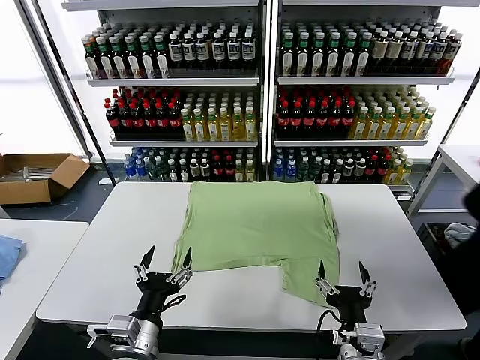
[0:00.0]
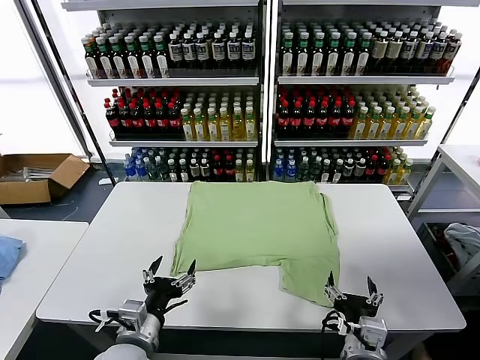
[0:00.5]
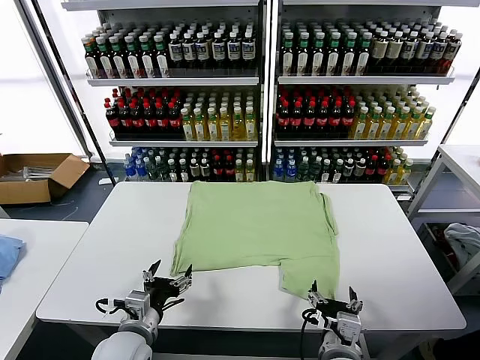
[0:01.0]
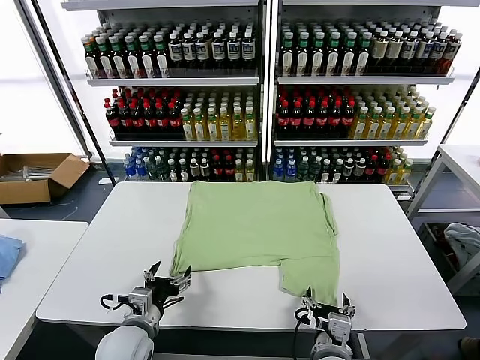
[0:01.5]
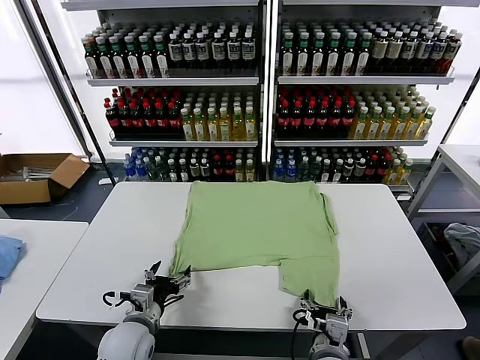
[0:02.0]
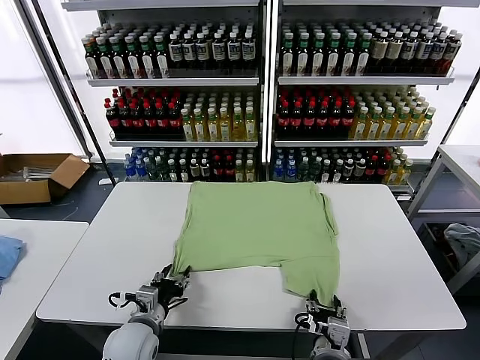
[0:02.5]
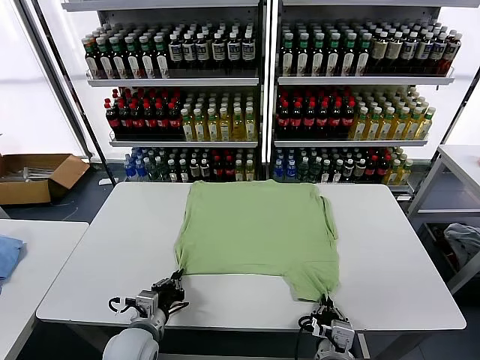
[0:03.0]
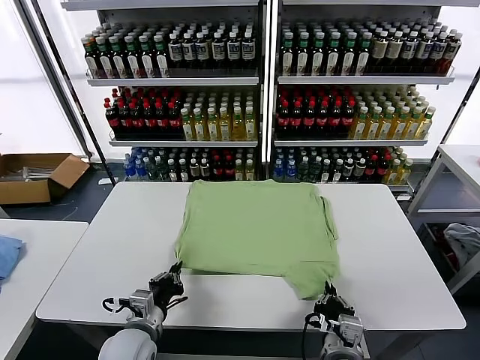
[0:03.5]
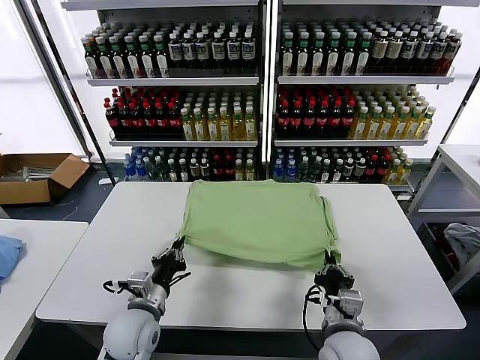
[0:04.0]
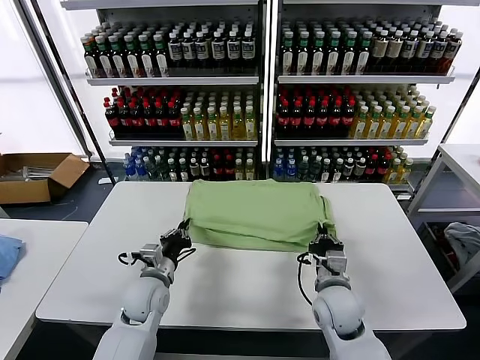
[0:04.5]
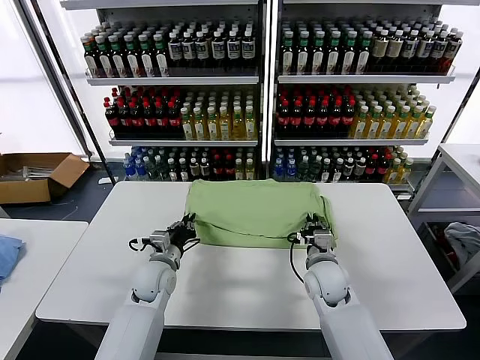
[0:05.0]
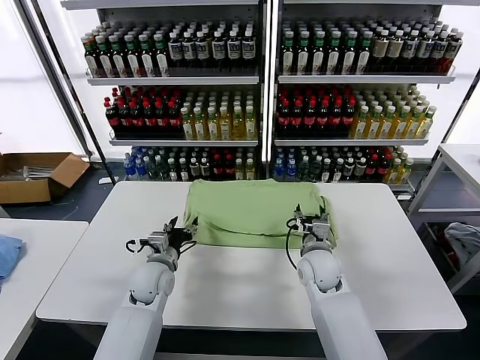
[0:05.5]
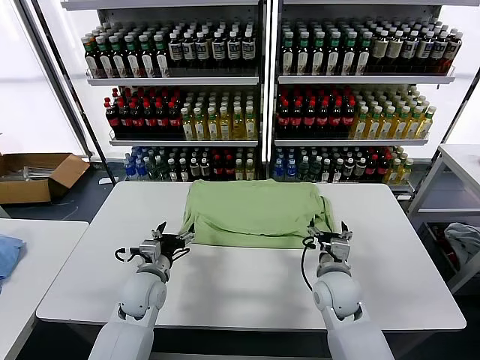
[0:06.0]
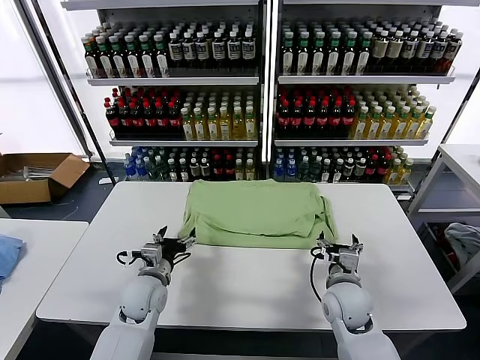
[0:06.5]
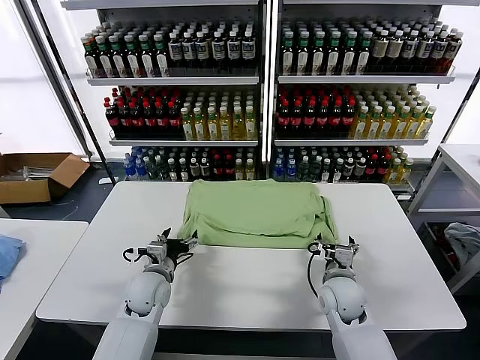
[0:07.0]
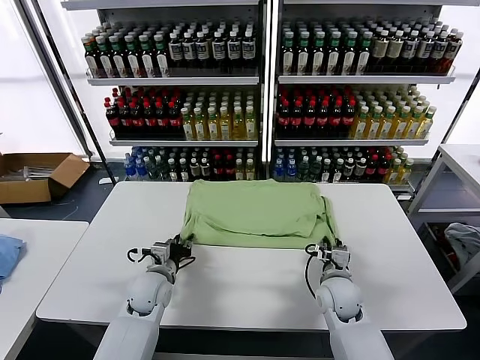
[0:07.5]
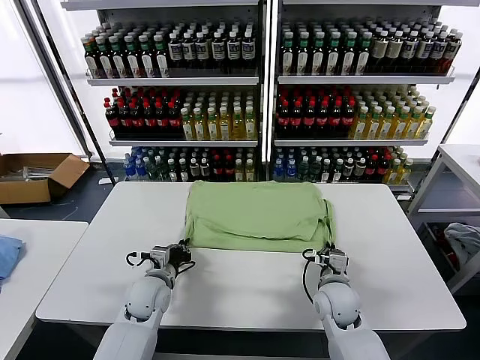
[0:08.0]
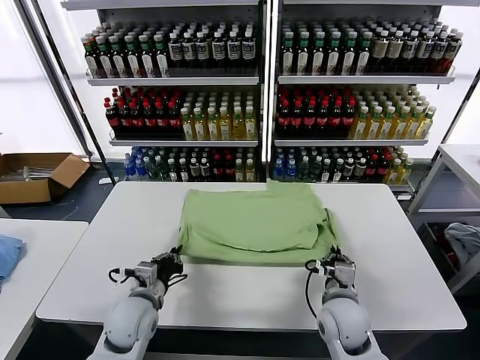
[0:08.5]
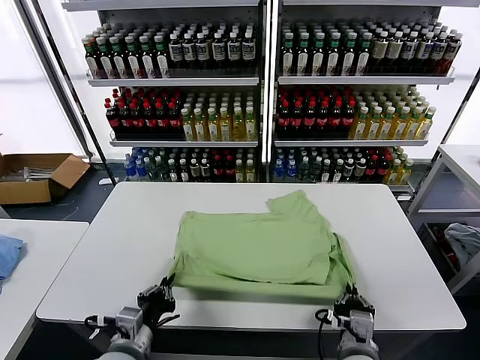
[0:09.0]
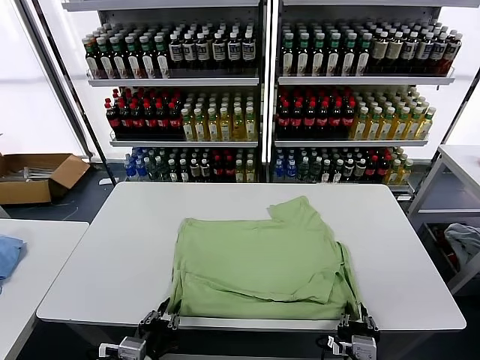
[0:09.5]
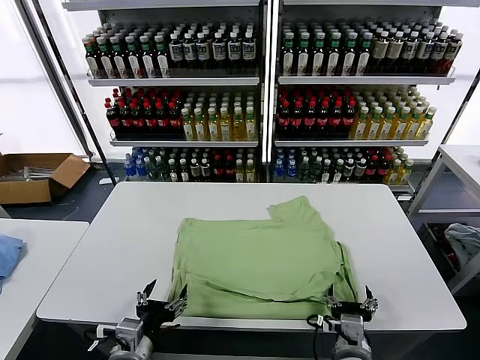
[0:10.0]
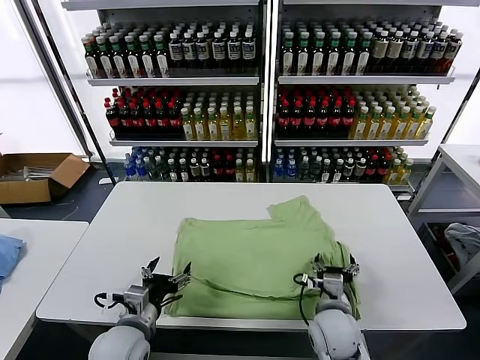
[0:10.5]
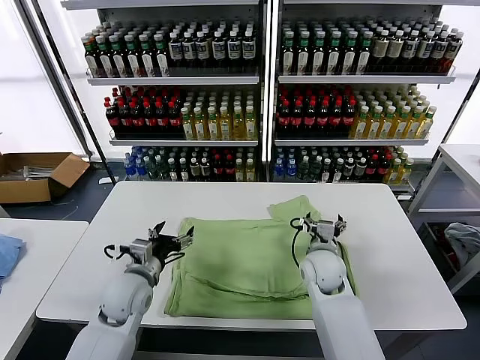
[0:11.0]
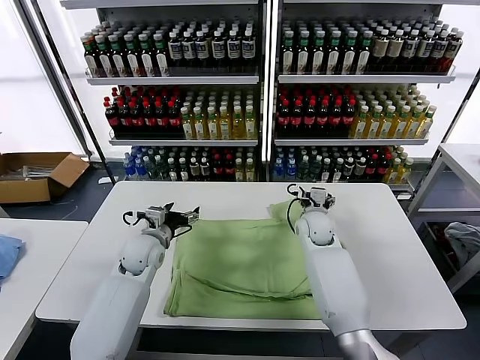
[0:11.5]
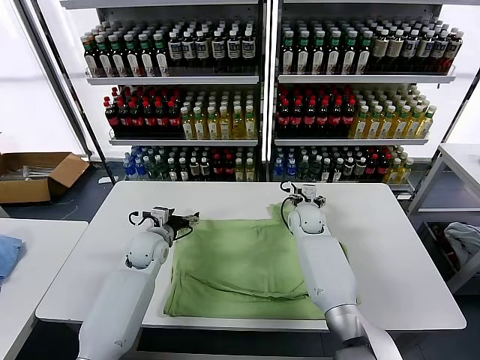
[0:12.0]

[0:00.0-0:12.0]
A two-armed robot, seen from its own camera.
Task of the whole recording: fold and organize the clothes.
Step, 0:00.0 to 0:03.0: use both grippers simultaneously to clamp the lower edge of the clothing fabric.
Step, 0:03.5 to 0:05.5: use both grippers to drag the lower edge of the fabric forward and fold it over the upper edge.
Step, 0:06.0 to 0:09.5: Drag the clothes downward with both gripper.
0:02.0 to 0:04.0: The left gripper closes its fingers, while the right gripper shifts some 5 cm forward, and closes.
0:04.0 to 0:06.0: Both grippers travel together forward, roughly 10 cm. The right gripper opens its fingers. The left gripper opens.
0:06.0 to 0:08.0: The left gripper closes up, while the right gripper closes up.
0:08.0 to 0:10.0: The grippers both shift backward by some 15 cm. The left gripper opens up. Meanwhile the right gripper opens.
0:10.0 to 0:12.0: The two grippers go some 30 cm forward.

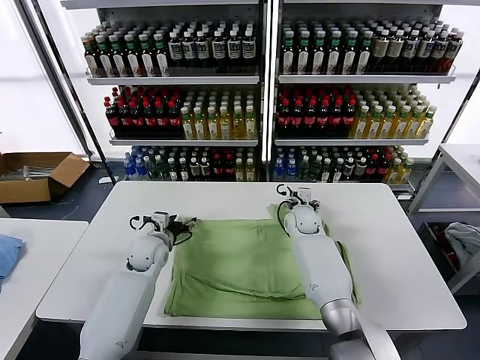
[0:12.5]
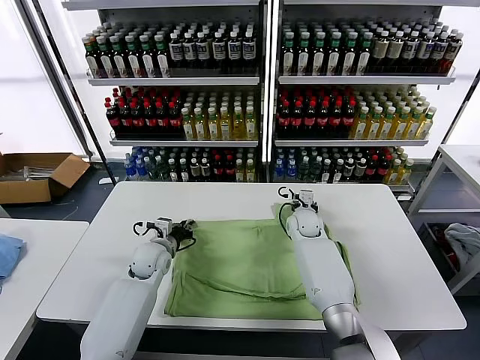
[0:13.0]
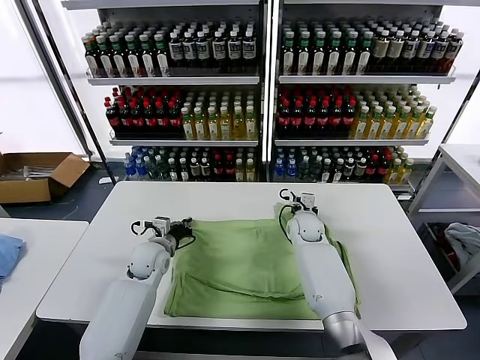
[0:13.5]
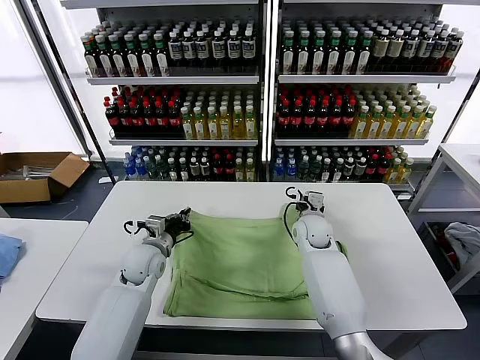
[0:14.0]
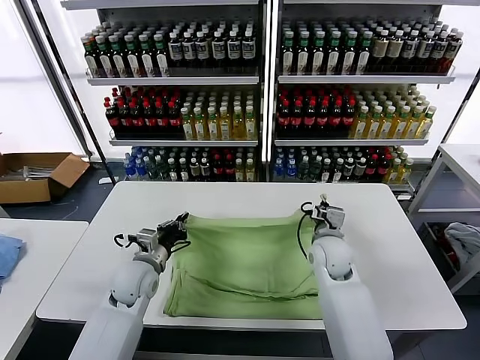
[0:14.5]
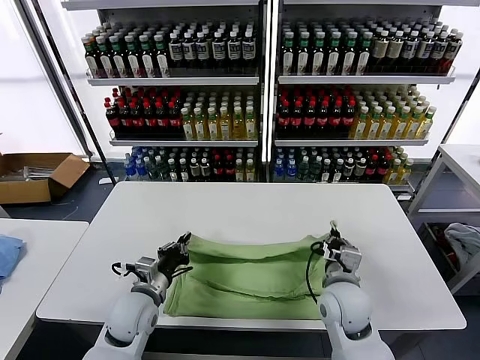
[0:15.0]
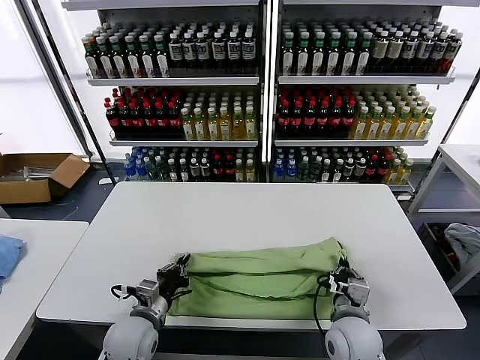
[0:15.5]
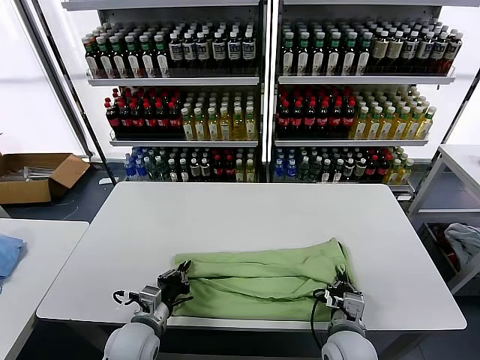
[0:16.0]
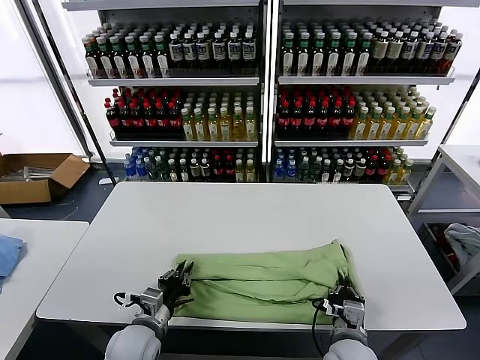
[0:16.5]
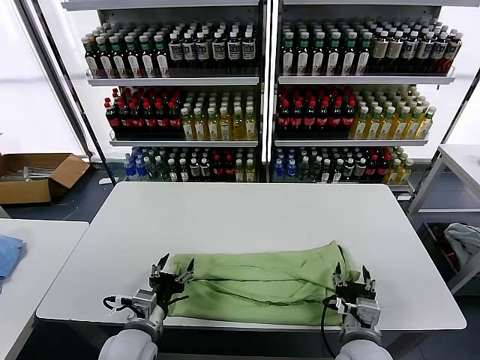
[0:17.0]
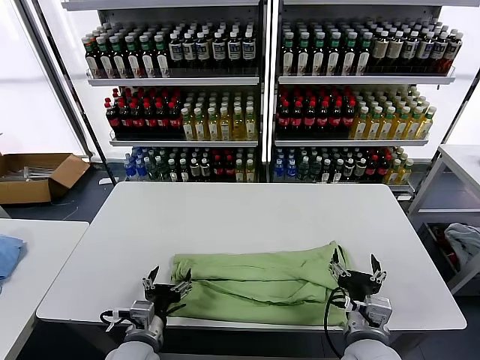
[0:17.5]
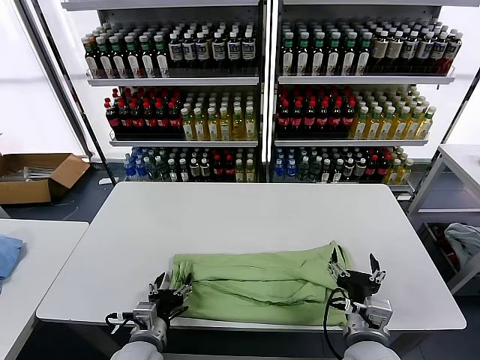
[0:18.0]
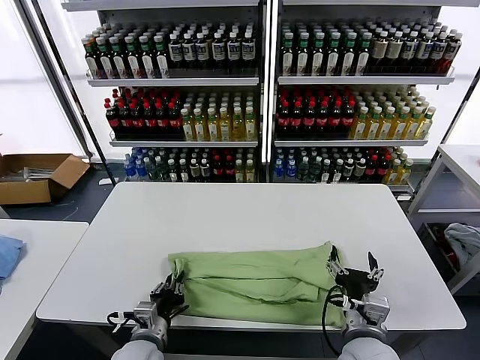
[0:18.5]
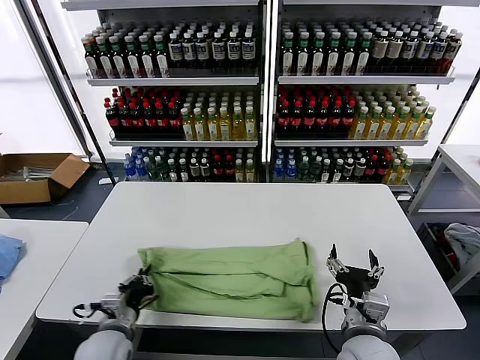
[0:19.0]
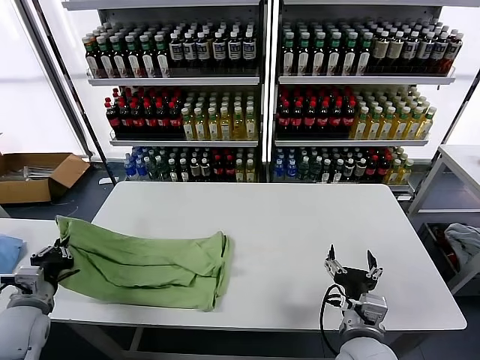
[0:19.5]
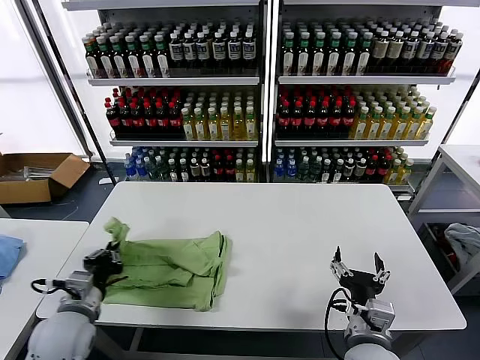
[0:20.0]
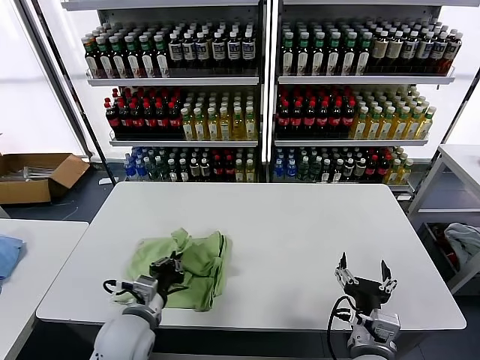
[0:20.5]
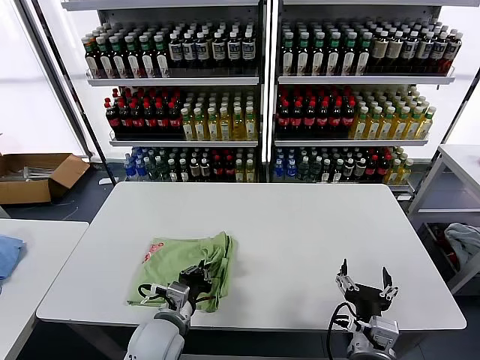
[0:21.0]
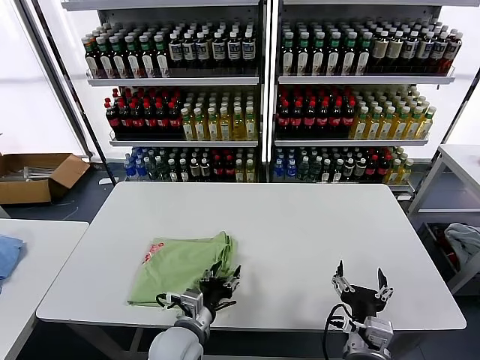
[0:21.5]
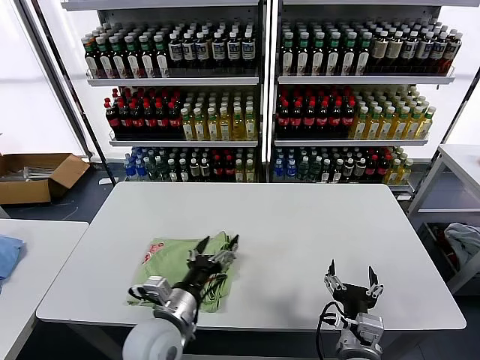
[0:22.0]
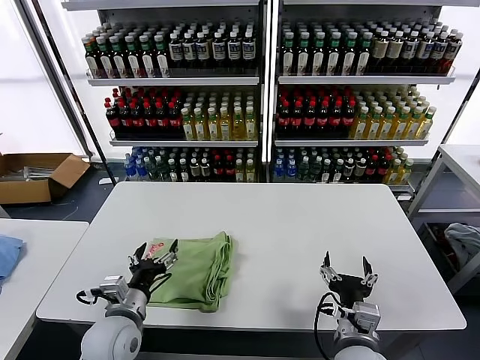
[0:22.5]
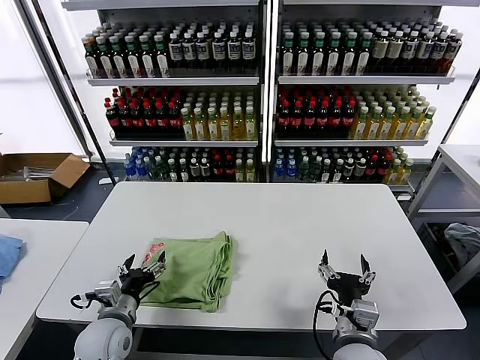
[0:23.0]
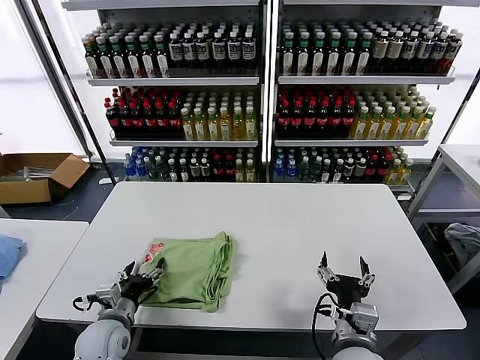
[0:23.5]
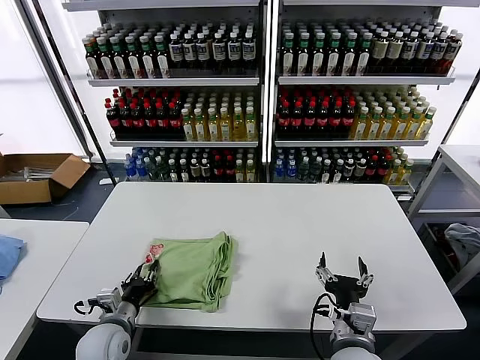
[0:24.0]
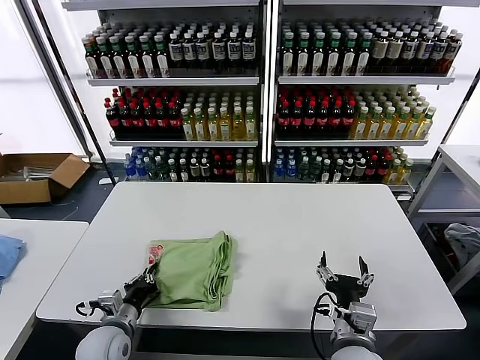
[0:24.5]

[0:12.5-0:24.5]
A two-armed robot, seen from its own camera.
Task of the whole recording: fold and organize the clothes.
Step, 0:13.5 to 0:17.0: use both grippers to drag the upper edge of the fabric backward and fold it over the lower edge.
Step, 0:17.5 to 0:18.5: use the left gripper to clamp the left edge of the fabric.
Step, 0:19.0 to 0:21.5: use the left gripper to drag the left edge of the fabric to the left and folds it over the right edge.
0:12.5 to 0:14.5: The right gripper goes some 15 cm backward, and closes. The left gripper travels backward by some 10 cm, and closes up.
0:14.5 to 0:16.5: The right gripper moves backward and downward, some 20 cm; the left gripper moves backward, approximately 10 cm.
0:16.5 to 0:18.5: The right gripper is displaced upward by some 10 cm, and opens, while the left gripper opens, then closes again.
0:18.5 to 0:20.5: The left gripper goes about 5 cm upward, and travels to the left and back again, roughly 20 cm each way.
0:20.5 to 0:22.5: The left gripper goes to the right and returns, some 10 cm each way, and opens up.
0:22.5 to 0:24.5: The left gripper shifts roughly 5 cm downward, and closes.

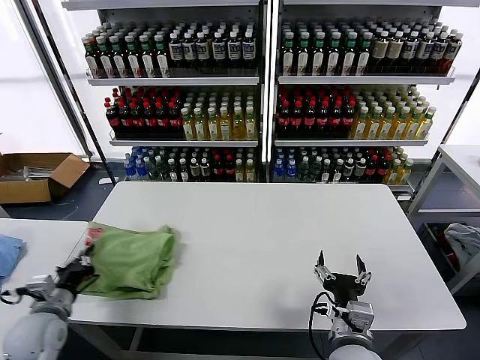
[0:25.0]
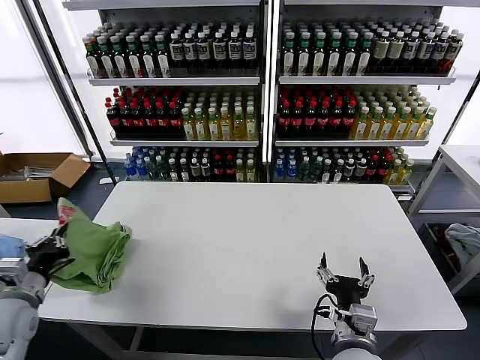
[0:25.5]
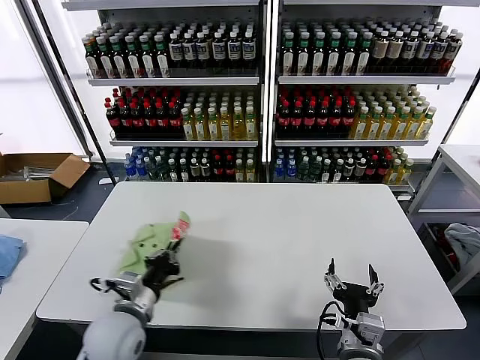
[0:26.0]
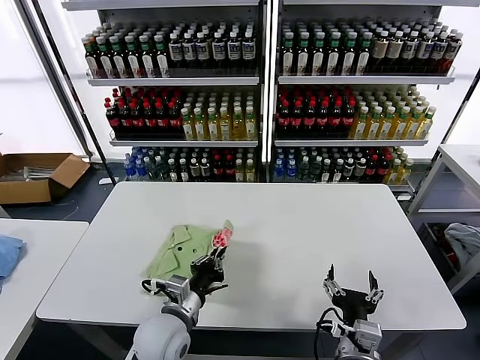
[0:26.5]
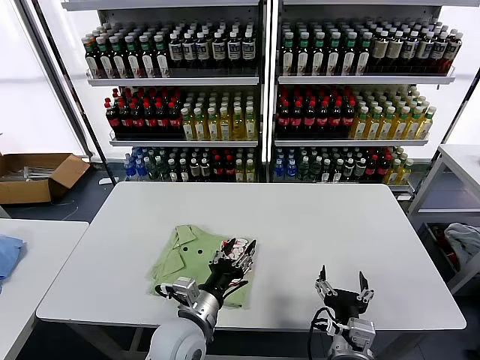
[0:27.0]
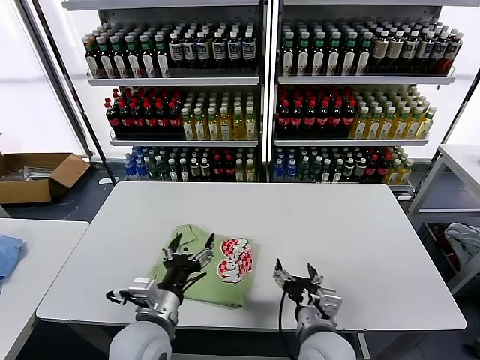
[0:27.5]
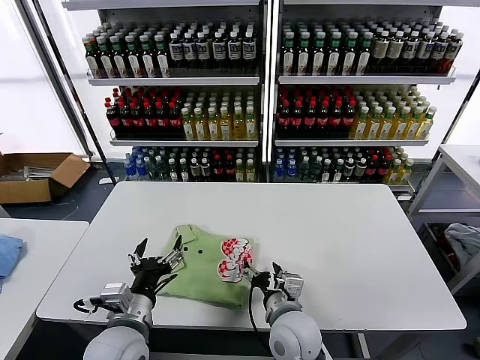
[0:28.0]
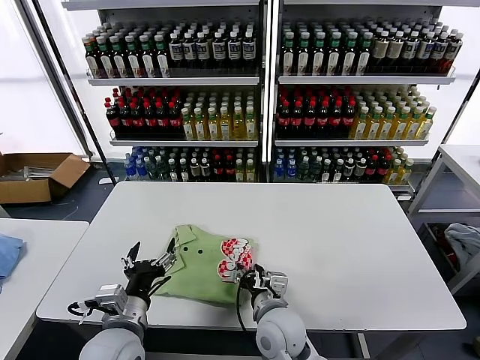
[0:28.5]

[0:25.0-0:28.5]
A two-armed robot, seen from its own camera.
Task of the whole recording: fold and organize the clothes.
0:25.0 to 0:27.0: The left gripper is displaced to the right by approximately 30 cm, and opens up.
0:27.0 to 0:28.5: The left gripper shifts about 10 cm to the left, and opens its fingers. Meanwhile the right gripper shifts some 15 cm to the left and forward.
